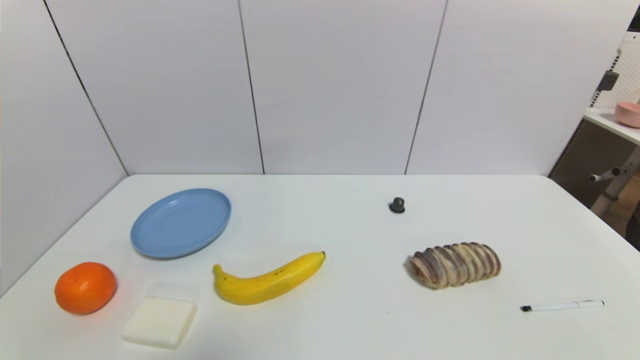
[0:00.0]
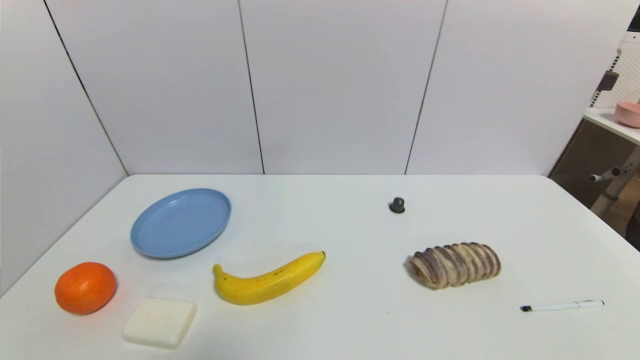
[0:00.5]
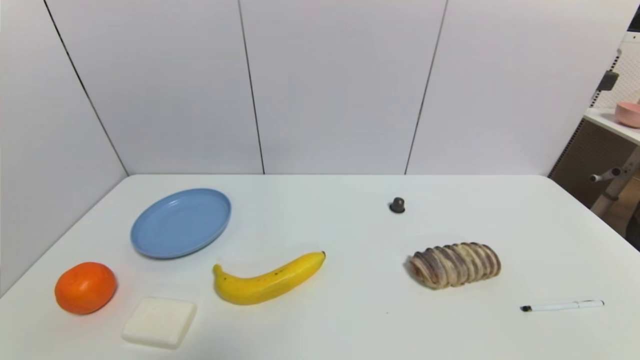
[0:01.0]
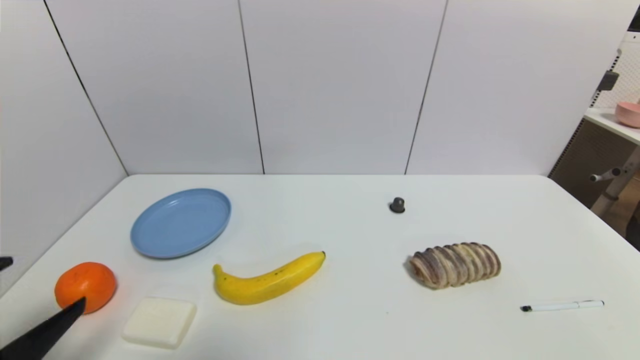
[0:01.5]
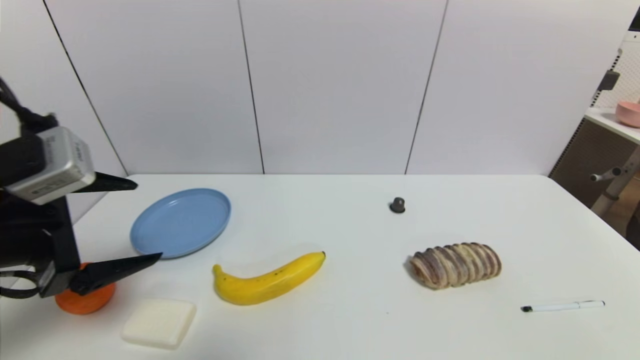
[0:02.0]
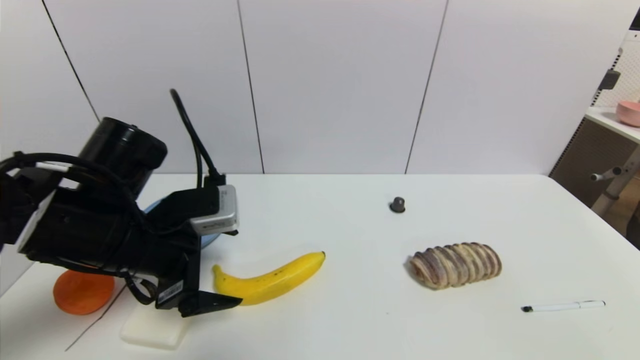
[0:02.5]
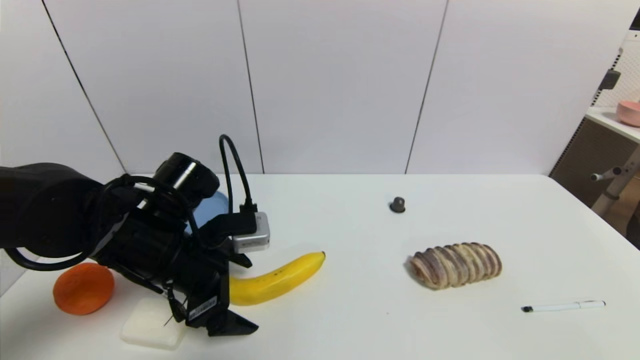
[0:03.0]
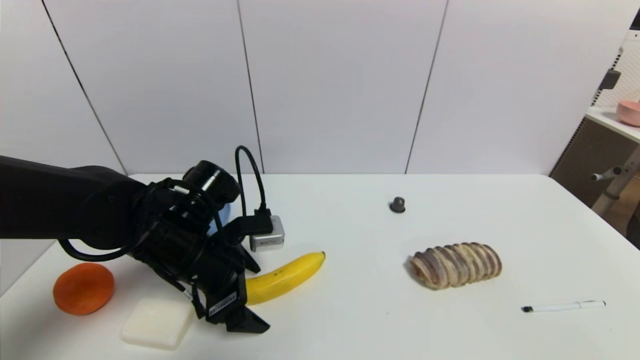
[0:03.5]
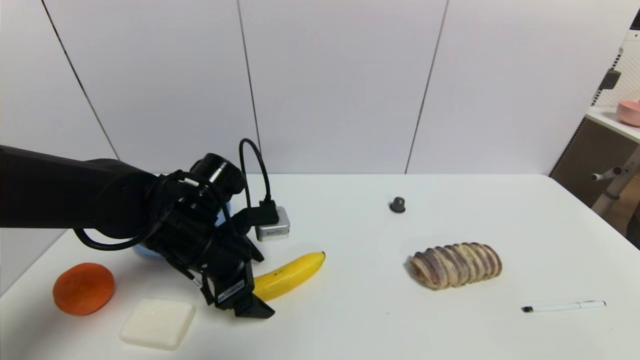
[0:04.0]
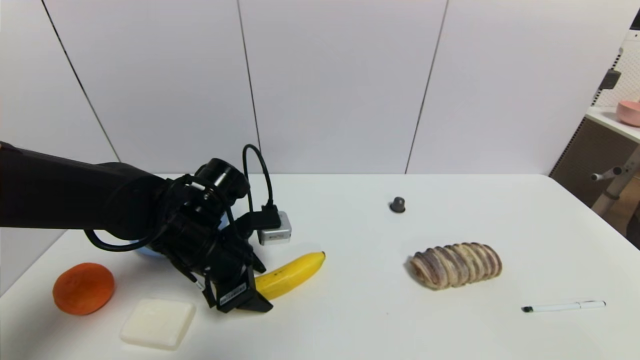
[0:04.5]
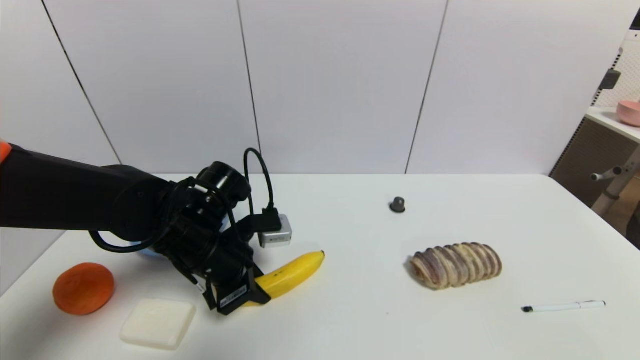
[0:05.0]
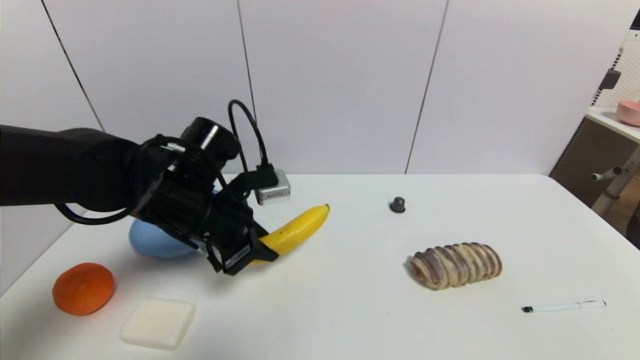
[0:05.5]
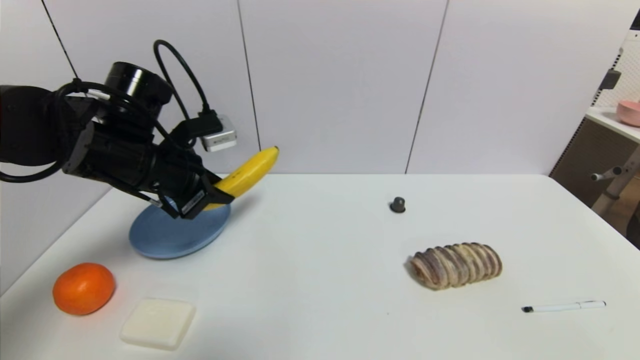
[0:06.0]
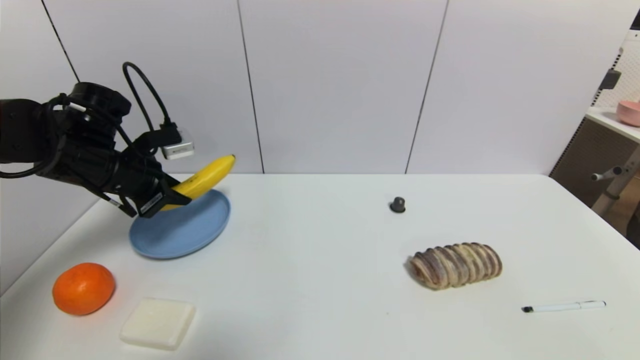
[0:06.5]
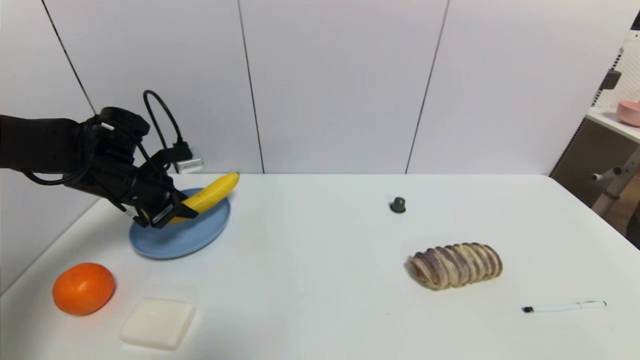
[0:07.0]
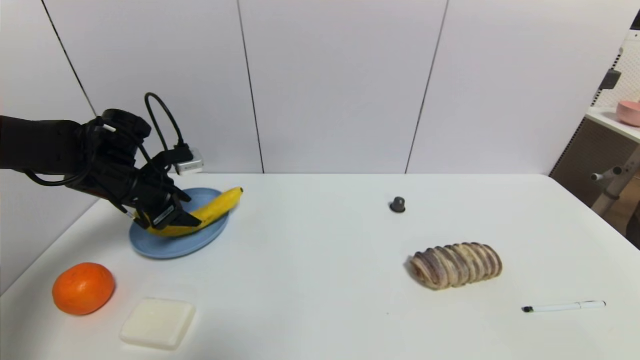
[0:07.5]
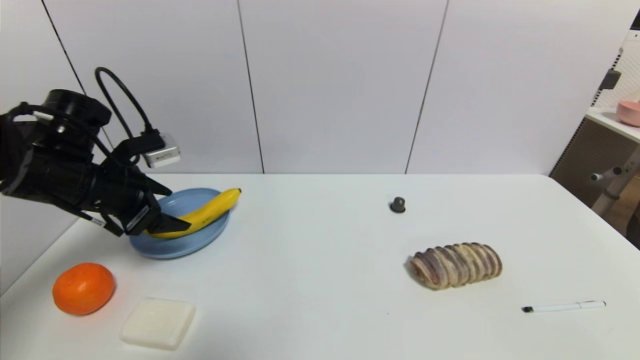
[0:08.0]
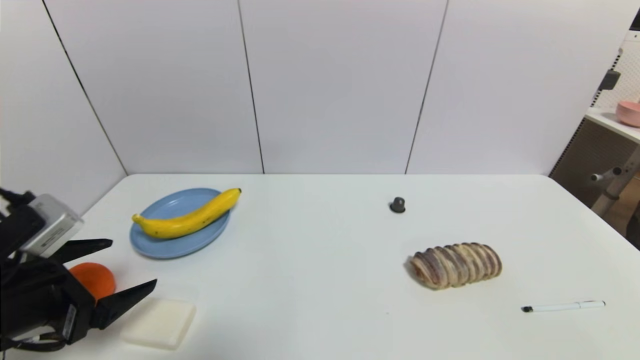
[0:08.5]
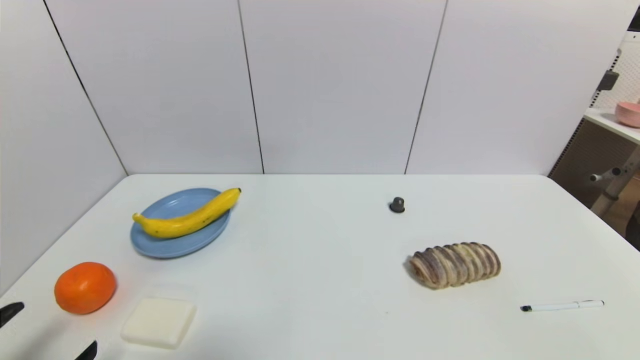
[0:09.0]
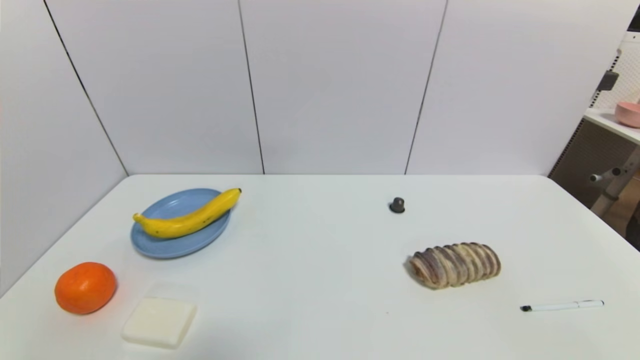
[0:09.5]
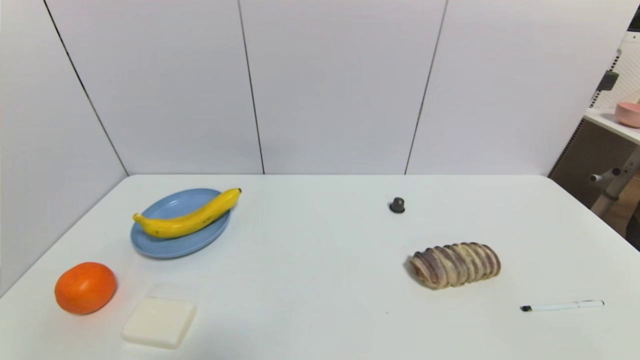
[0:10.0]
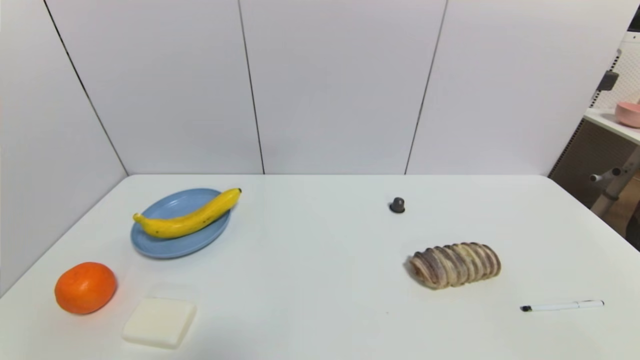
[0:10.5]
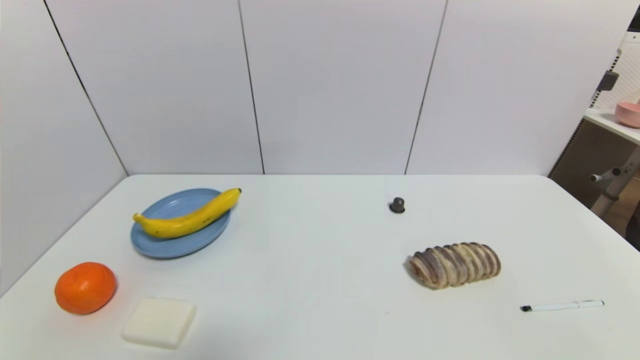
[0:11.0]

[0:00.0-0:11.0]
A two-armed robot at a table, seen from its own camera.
Task of the whole recording: use a gripper to pick the target object and place on the blue plate.
Step, 0:00.0 to 0:04.5: Grasp the banana with the left gripper.
Step, 0:05.0 to 0:08.0: Place the banana on the blue plate with the left gripper.
0:00.0 to 0:02.0: The left gripper moves upward and forward, roughly 25 cm.
0:02.0 to 0:03.5: The left gripper travels downward, to the right and forward by about 20 cm.
0:03.5 to 0:05.5: The left gripper travels upward by roughly 5 cm, and closes its fingers.
0:05.5 to 0:07.5: The left gripper shifts roughly 15 cm to the left and forward, and opens up.
0:07.5 to 0:09.0: The left gripper travels backward by roughly 35 cm, and opens up.
0:09.0 to 0:11.0: The left gripper is displaced downward by about 5 cm.

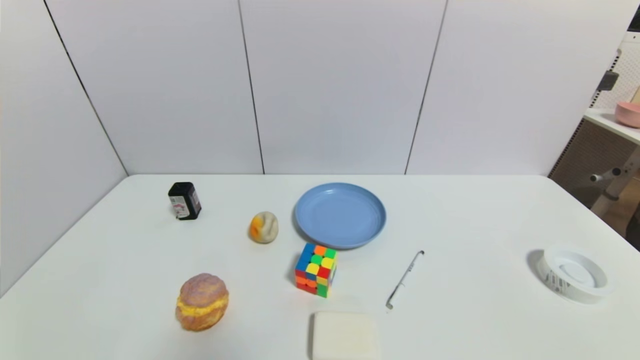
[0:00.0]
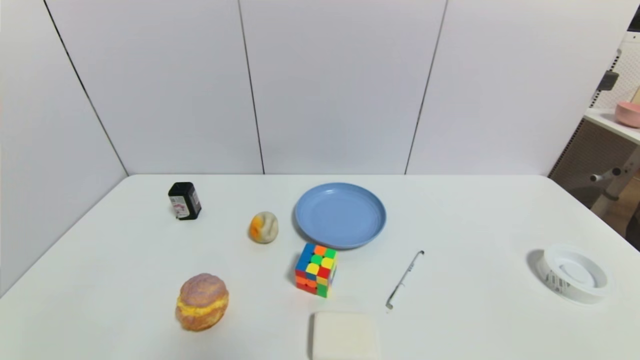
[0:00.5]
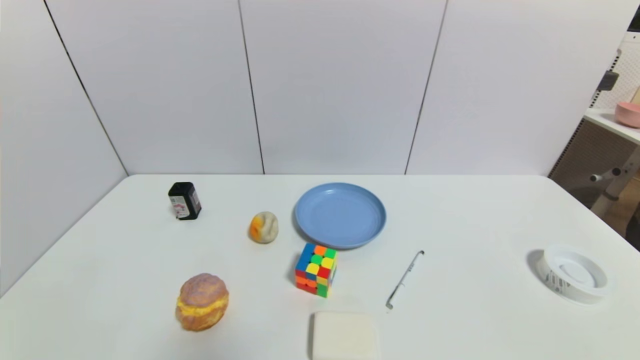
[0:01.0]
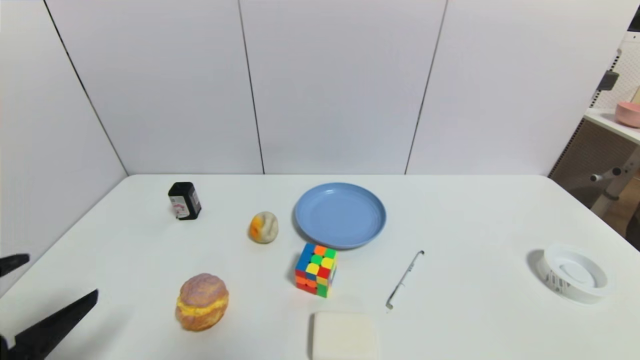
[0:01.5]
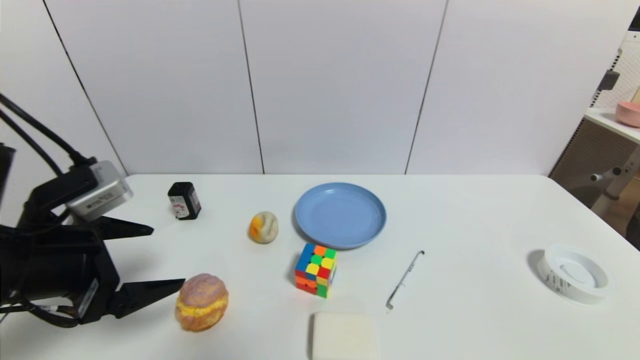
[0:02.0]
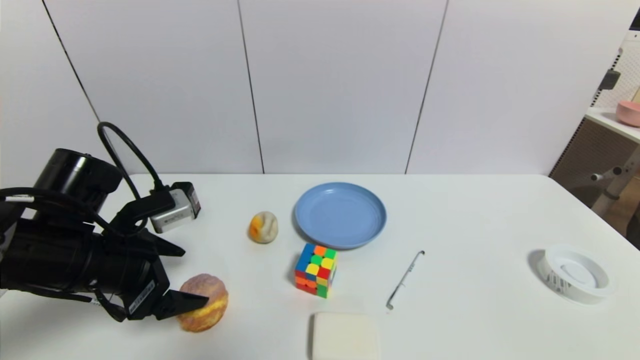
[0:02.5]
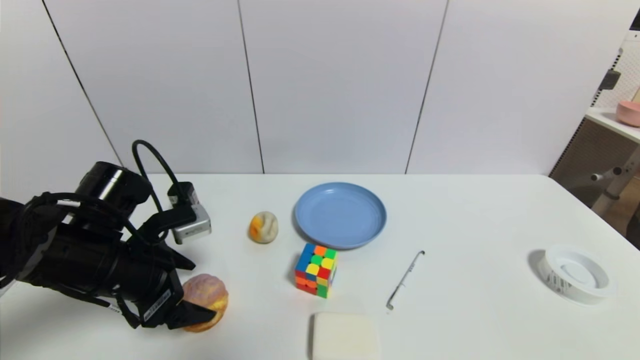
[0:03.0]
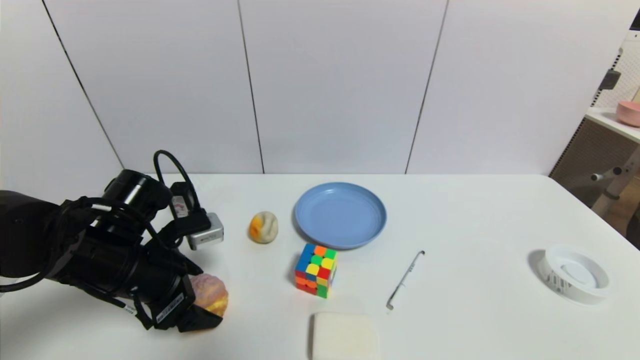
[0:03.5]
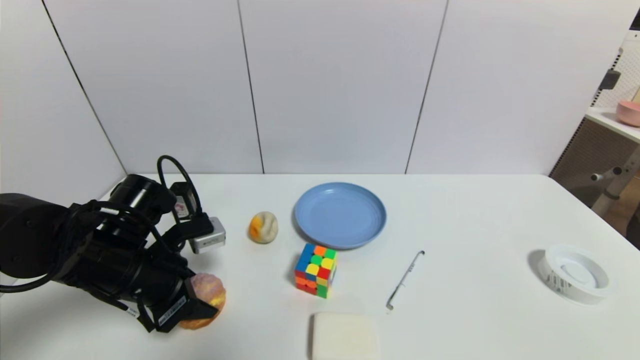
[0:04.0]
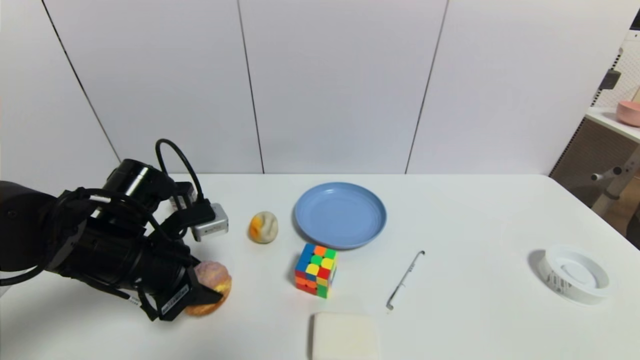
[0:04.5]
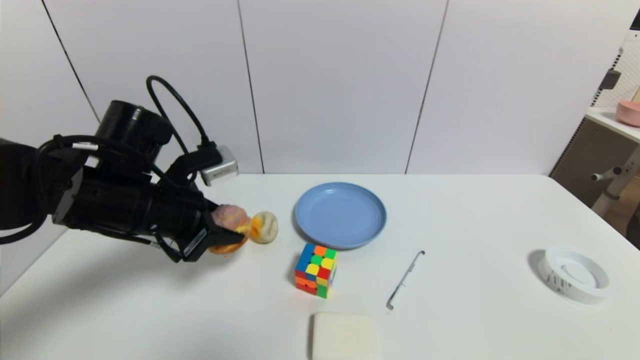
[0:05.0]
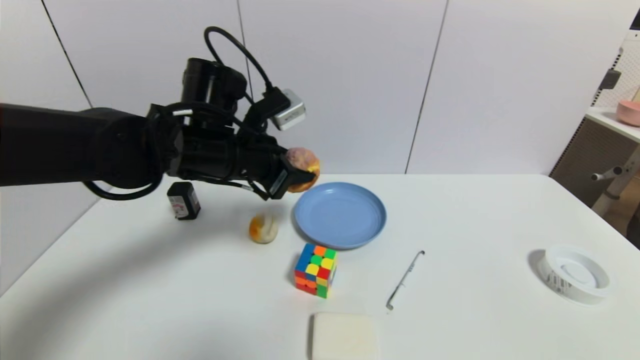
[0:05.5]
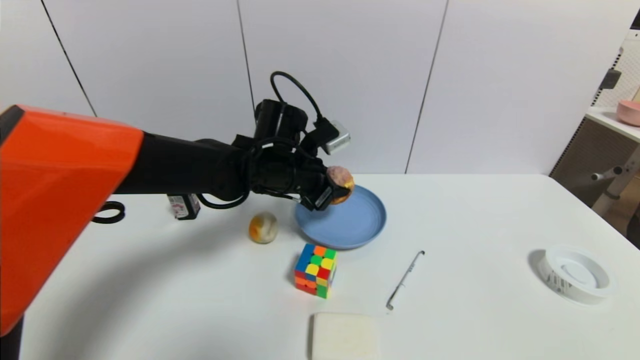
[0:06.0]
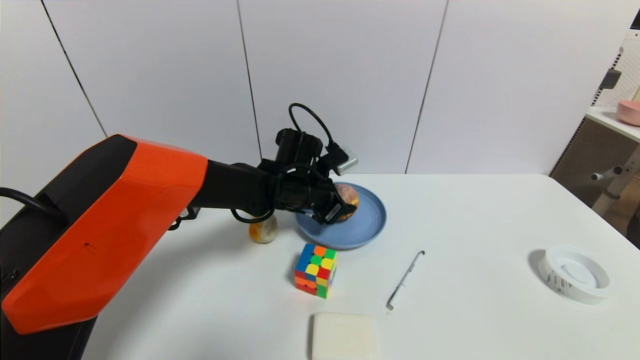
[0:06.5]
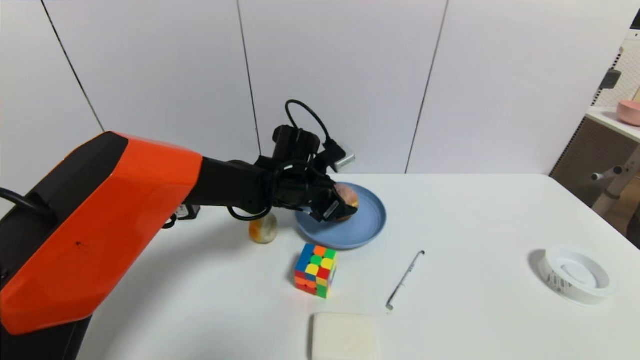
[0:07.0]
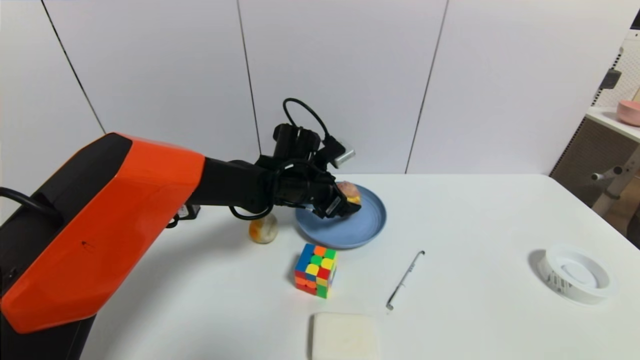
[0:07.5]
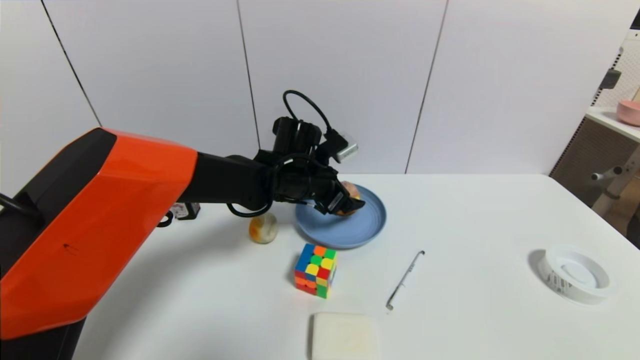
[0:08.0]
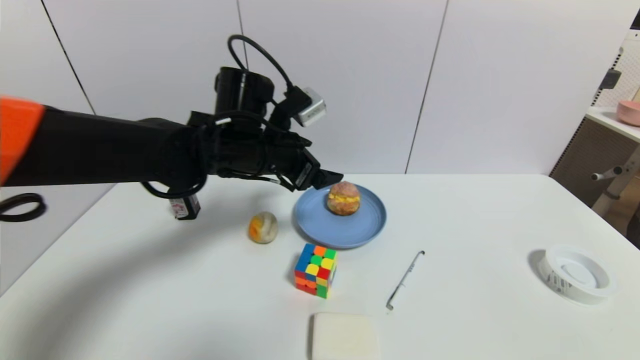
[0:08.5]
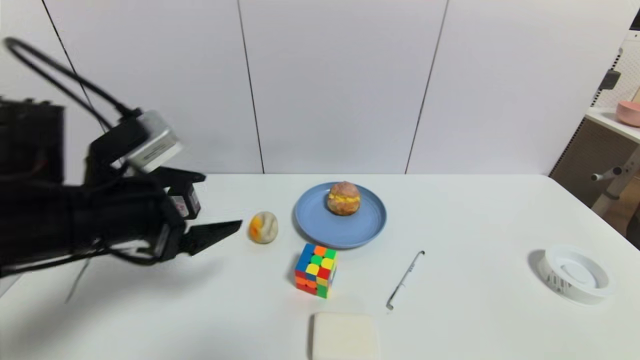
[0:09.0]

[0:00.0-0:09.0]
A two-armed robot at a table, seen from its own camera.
Task of the whole recording: use a gripper to pick the target object and place on the blue plate.
Step, 0:00.0 to 0:03.5: Grasp the round bread with the left gripper.
Step, 0:04.0 to 0:07.0: Place the round bread on the blue plate with the left gripper.
0:00.0 to 0:02.0: The left gripper travels forward and upward by about 25 cm.
0:02.0 to 0:04.5: The left gripper moves forward and downward, approximately 10 cm, and closes up.
0:04.5 to 0:07.0: The left gripper travels to the right and forward by some 25 cm, and opens up.
0:07.0 to 0:09.0: The left gripper heads backward, to the left and upward, covering about 30 cm.
